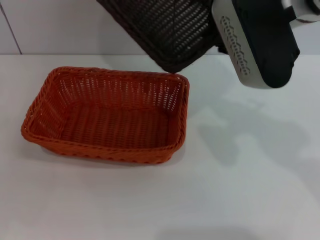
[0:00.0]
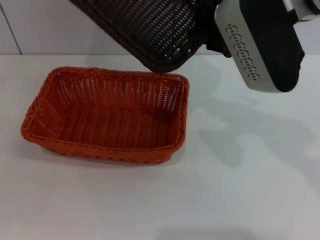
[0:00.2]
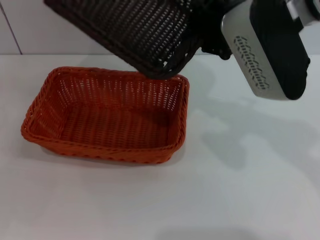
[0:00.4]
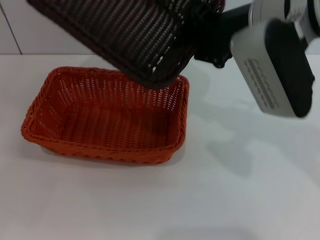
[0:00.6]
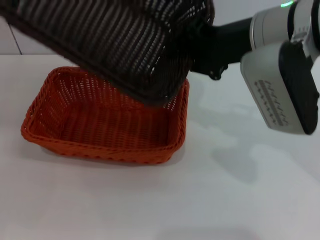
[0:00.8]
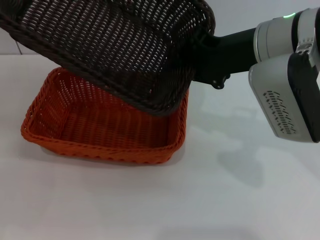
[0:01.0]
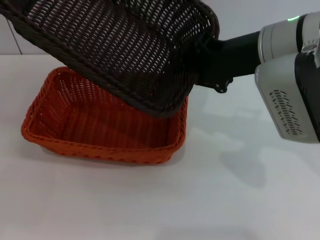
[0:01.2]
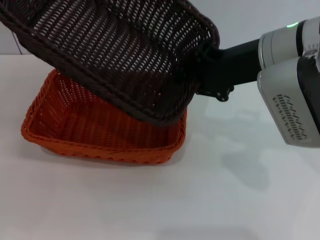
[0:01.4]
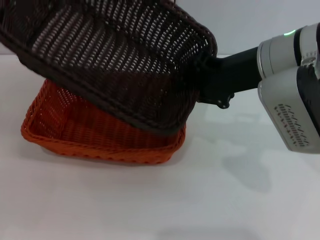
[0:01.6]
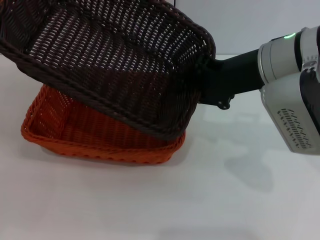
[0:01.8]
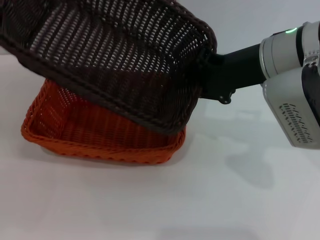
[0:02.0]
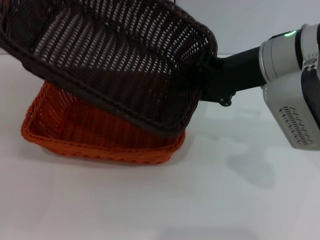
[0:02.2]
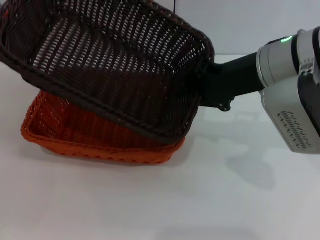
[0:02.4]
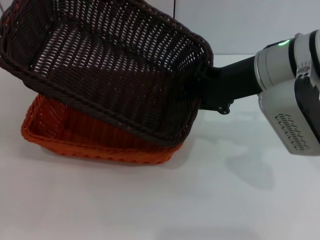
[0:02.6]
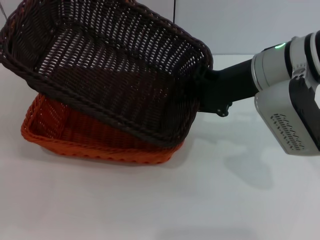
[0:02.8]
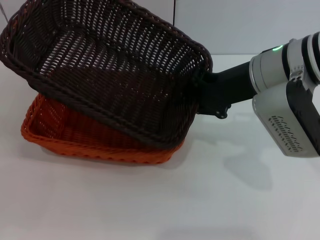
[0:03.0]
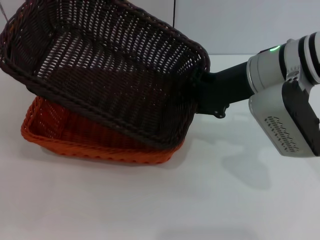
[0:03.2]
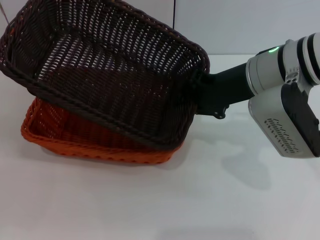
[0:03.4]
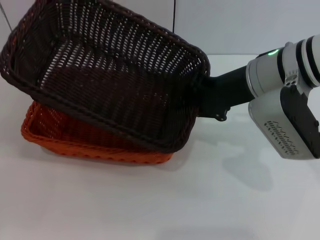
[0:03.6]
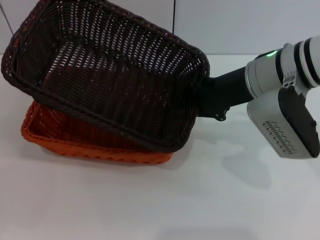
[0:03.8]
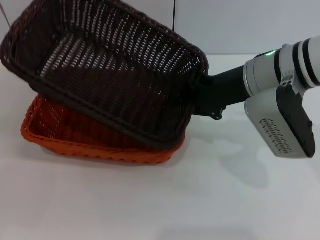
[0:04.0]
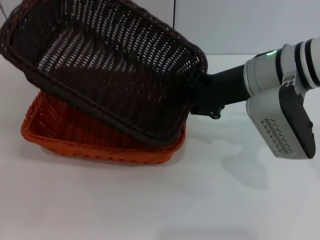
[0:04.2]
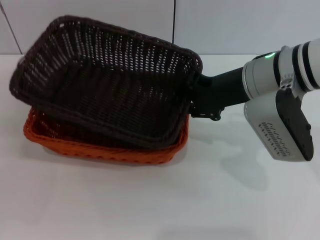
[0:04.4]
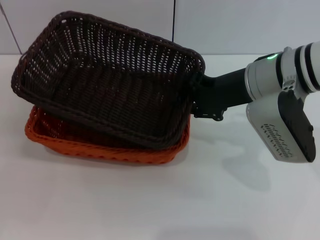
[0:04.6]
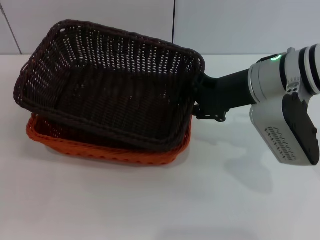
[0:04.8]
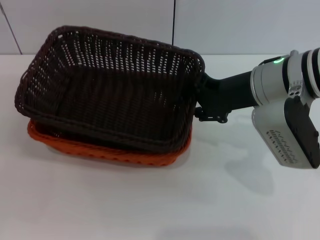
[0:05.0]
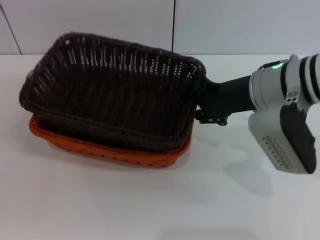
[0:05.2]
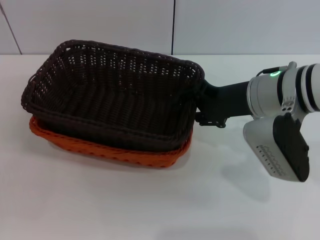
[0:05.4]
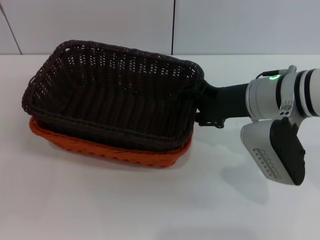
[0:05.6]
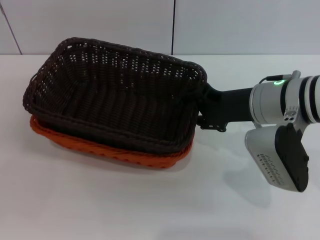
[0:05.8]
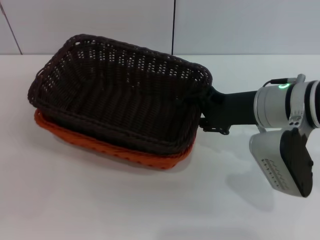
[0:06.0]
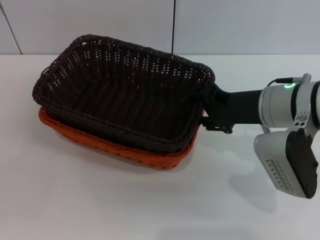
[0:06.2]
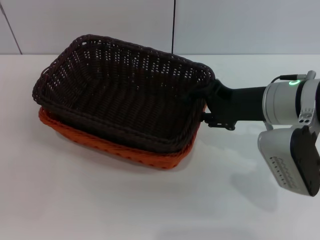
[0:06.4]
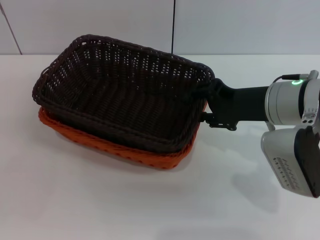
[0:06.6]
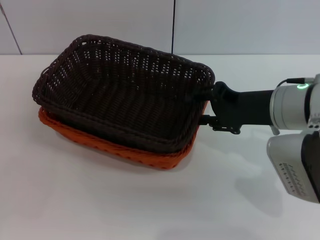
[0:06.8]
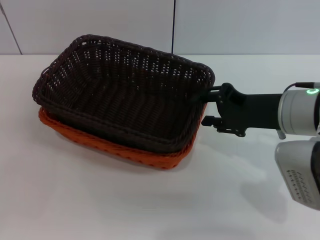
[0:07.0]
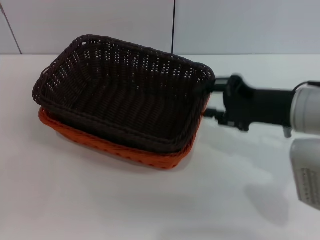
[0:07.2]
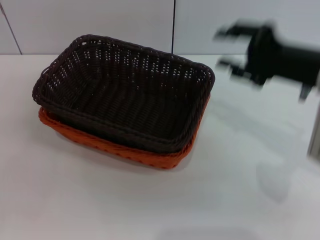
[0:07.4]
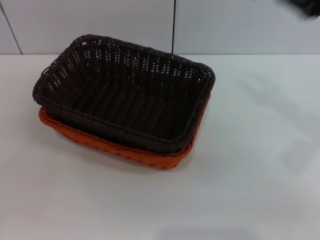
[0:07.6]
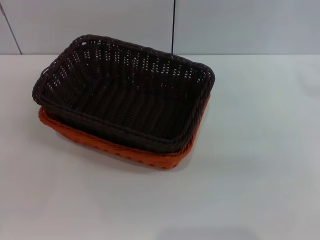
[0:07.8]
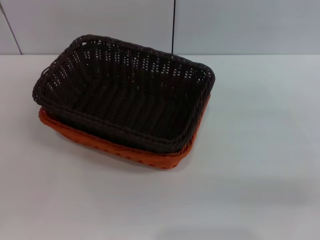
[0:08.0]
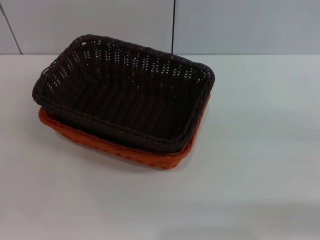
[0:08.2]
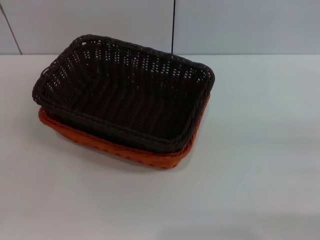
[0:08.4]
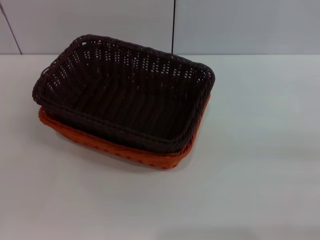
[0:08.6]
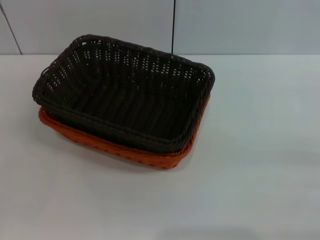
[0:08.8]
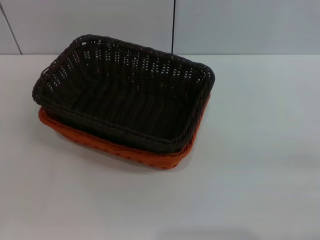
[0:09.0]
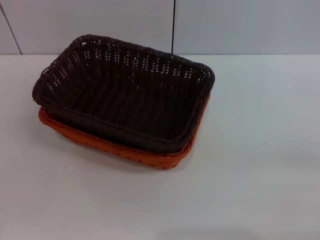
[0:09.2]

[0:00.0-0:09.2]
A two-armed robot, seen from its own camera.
Step, 0:00.0 to 0:06.0: Place the dark basket on the light basket with the right gripper.
0:00.0 to 0:01.6: The right gripper goes roughly 5 cm downward.
0:01.6 to 0:04.6: There are only small adjustments of the grippers.
0:04.6 to 0:06.2: The right gripper opens.
0:06.2 to 0:07.6: The right gripper moves to the right and upward, approximately 15 cm.
0:07.6 to 0:09.2: The right gripper heads downward, backward and to the right, covering approximately 25 cm.
